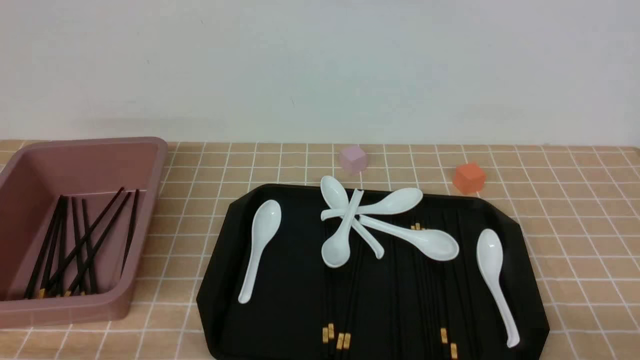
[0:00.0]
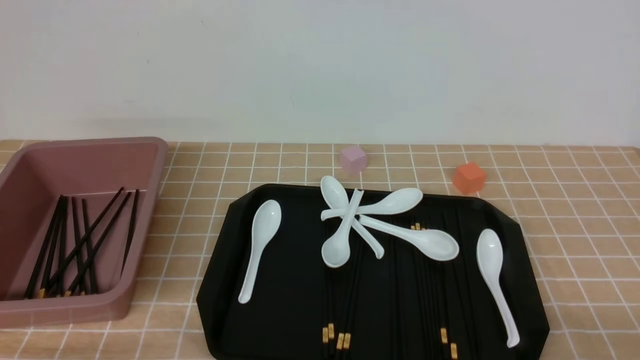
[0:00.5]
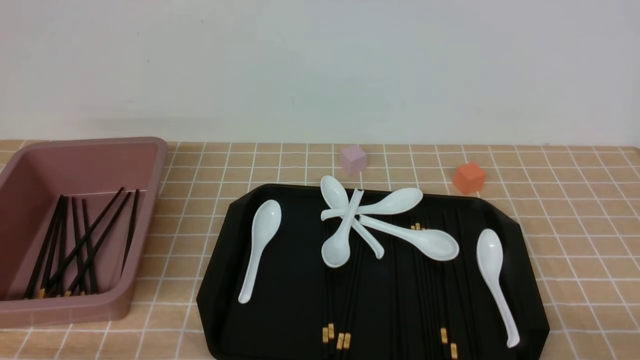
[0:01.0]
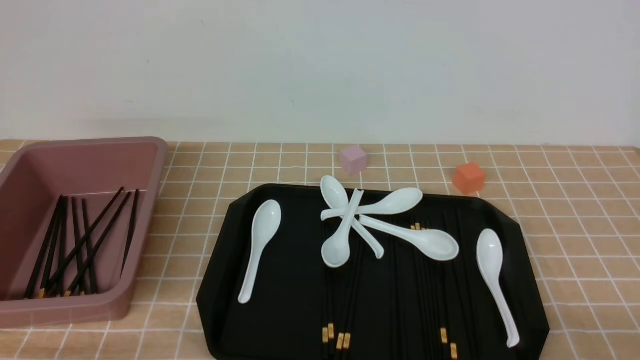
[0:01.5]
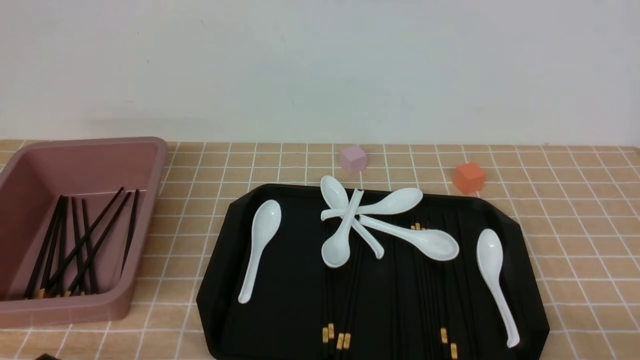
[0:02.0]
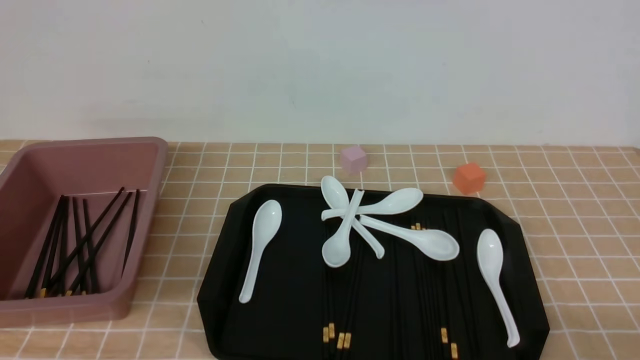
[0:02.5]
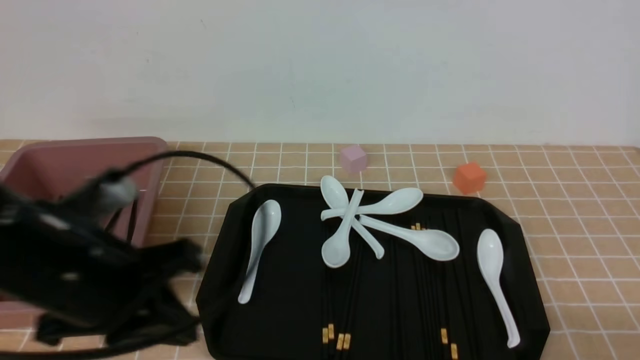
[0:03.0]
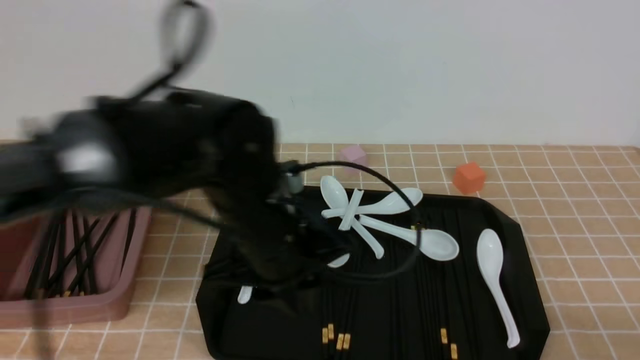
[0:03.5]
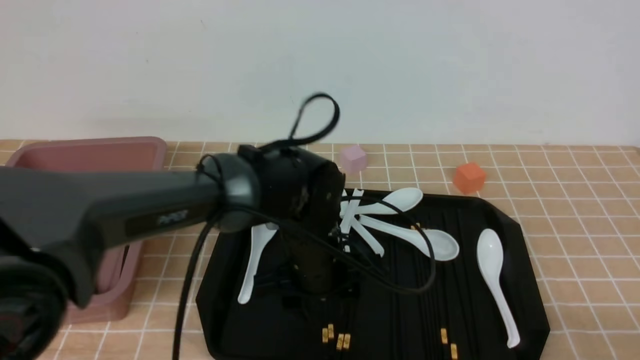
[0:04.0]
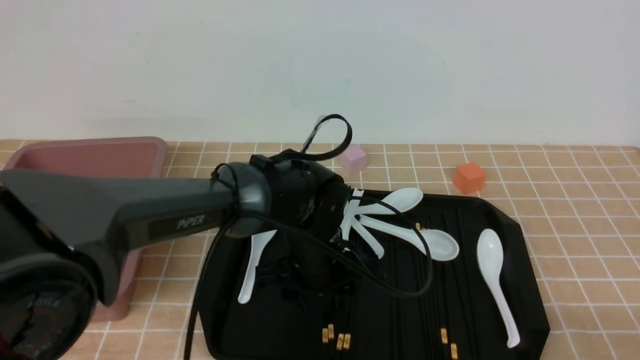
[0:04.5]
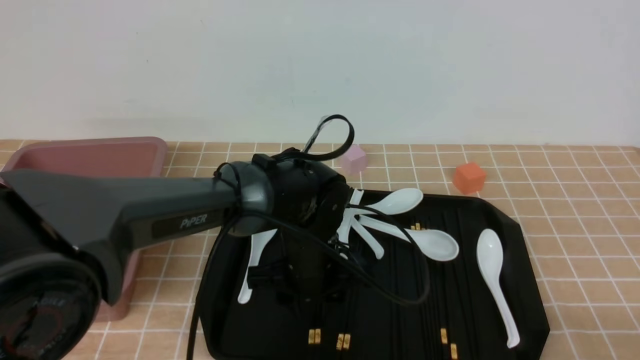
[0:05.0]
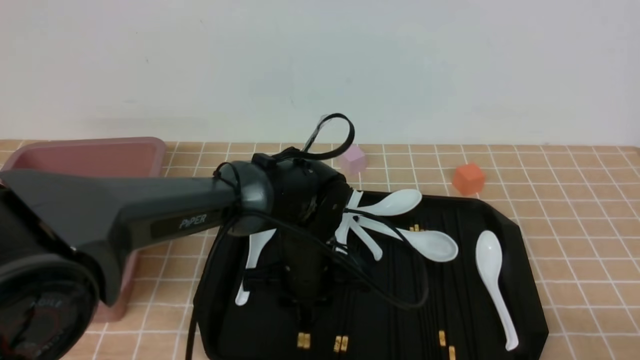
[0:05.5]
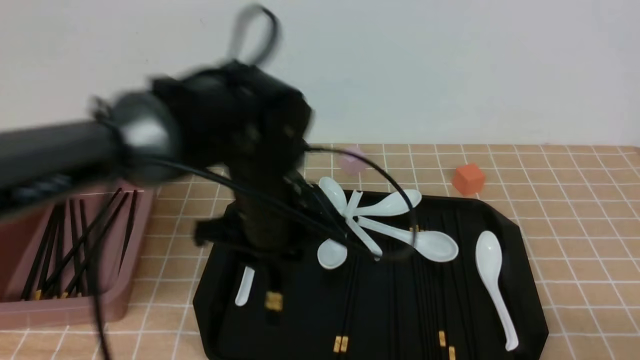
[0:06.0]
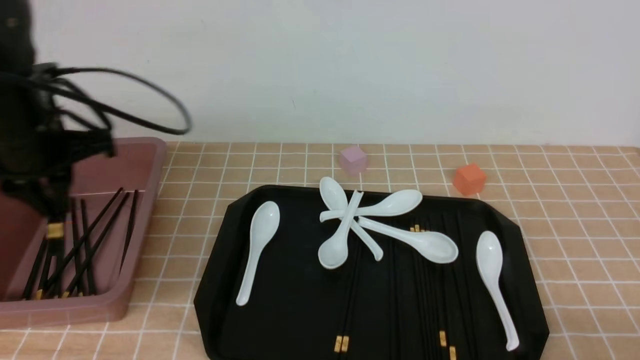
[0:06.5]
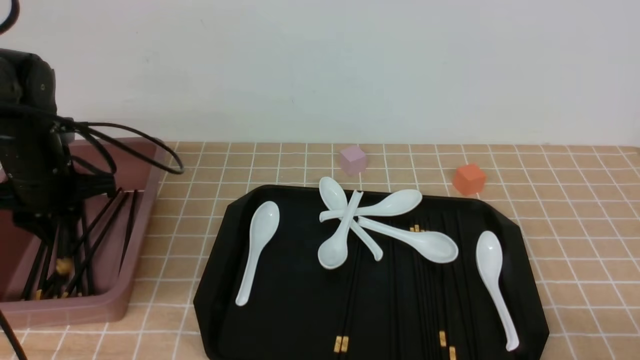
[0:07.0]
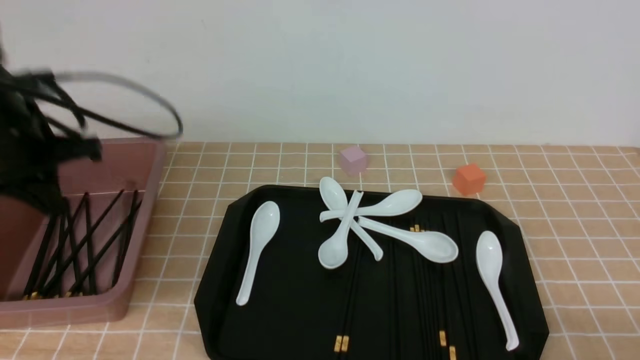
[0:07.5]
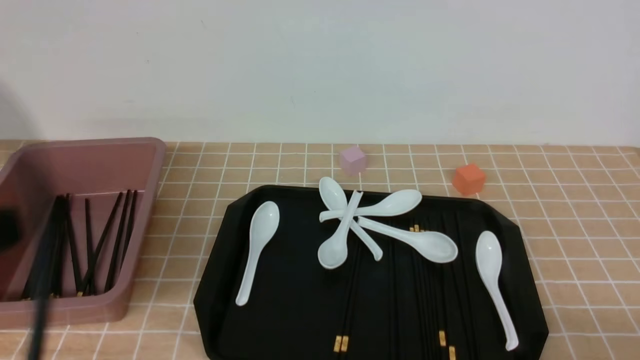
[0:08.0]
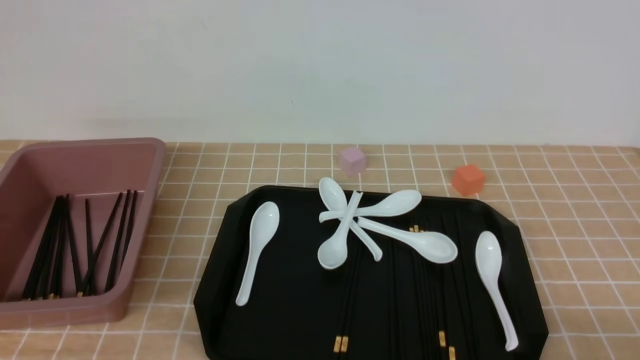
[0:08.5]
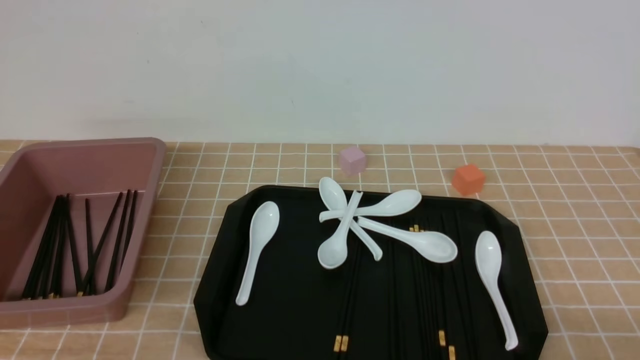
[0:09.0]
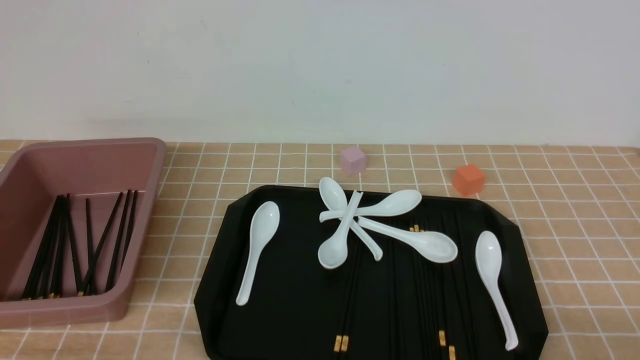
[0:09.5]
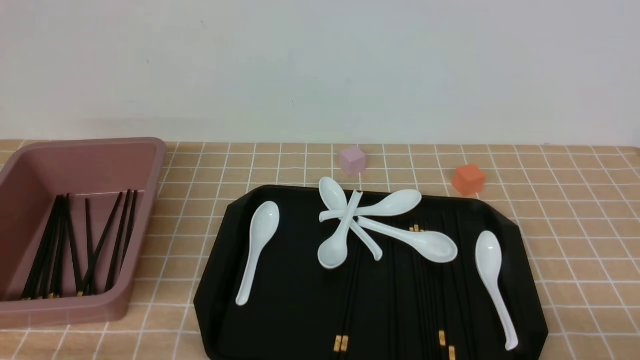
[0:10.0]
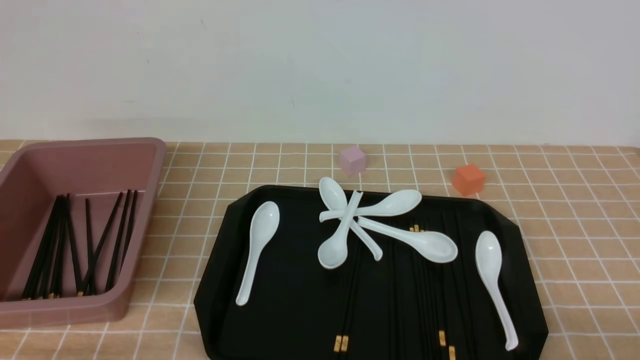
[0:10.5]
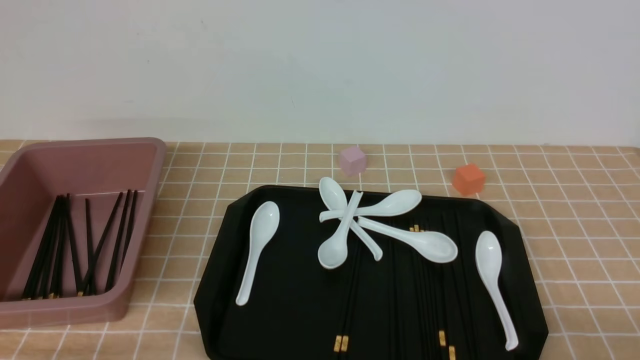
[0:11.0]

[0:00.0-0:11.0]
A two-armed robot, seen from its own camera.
Step, 0:00.0 to 0:05.5: use the left arm to grab a pair of chopsticks.
Step, 0:06.0 to 0:07.5: use the left arm to put the chopsticks into the lunch box.
0:02.0 to 0:03.5: The left gripper is displaced forward and to the right by approximately 30 cm.
0:03.5 to 0:05.5: The left gripper shifts about 10 cm downward, and opens, then closes again.
0:05.5 to 0:07.5: The left gripper travels to the left and upward by about 30 cm.
0:07.5 to 0:09.0: The left gripper travels backward by roughly 30 cm.
